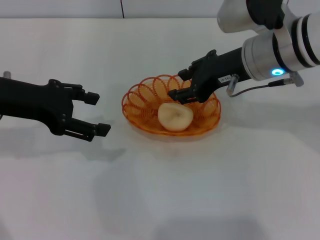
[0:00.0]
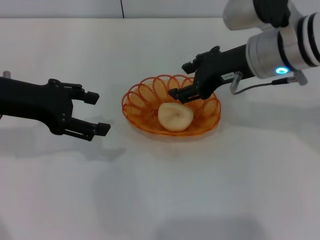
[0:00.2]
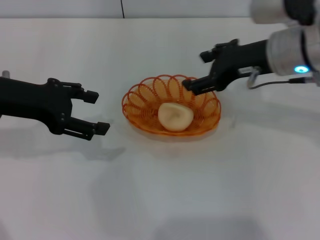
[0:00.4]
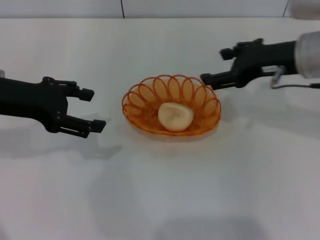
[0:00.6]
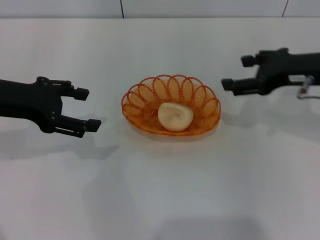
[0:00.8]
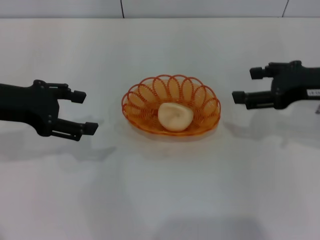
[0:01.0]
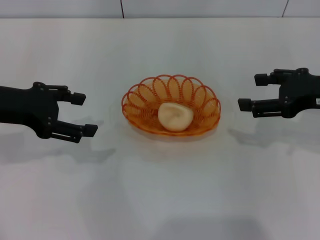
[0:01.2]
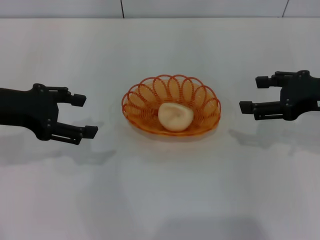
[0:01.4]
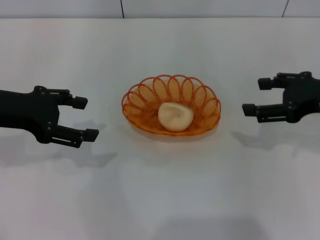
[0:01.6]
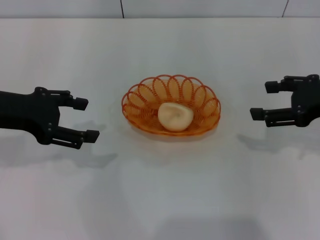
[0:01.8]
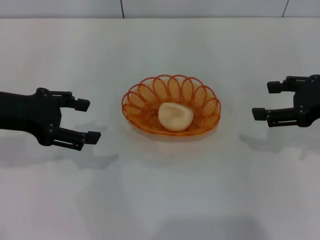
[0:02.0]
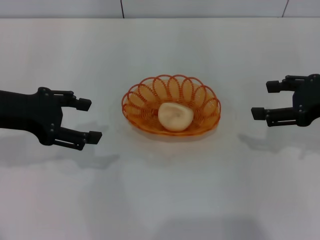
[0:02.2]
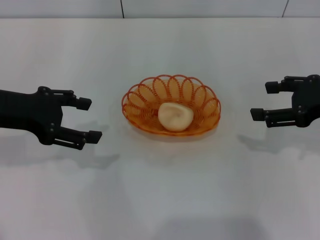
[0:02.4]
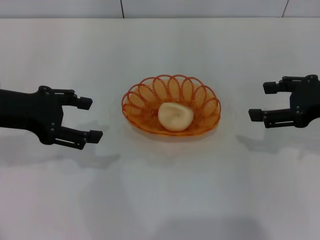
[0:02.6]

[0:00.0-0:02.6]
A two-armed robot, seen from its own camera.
0:00.0 to 0:01.2: The right gripper heads to the right and backward, covering some 15 cm, and opens its fingers.
0:01.2 to 0:02.6: The grippers make only small movements.
